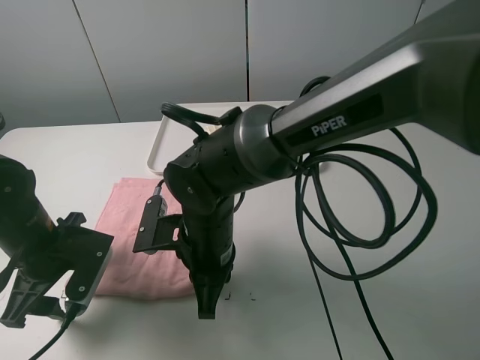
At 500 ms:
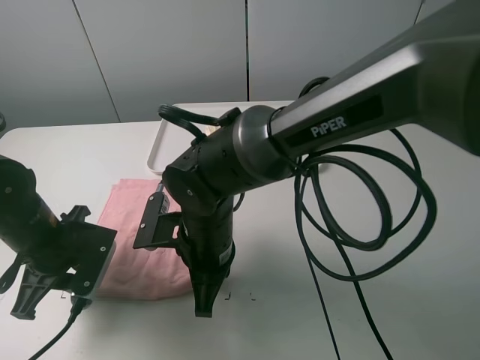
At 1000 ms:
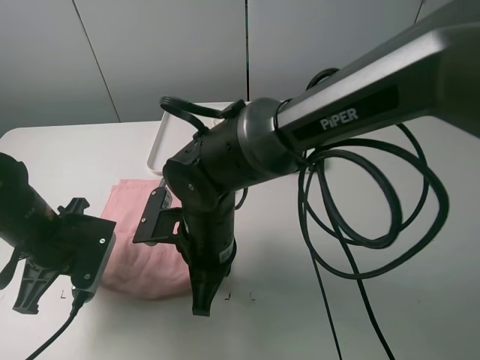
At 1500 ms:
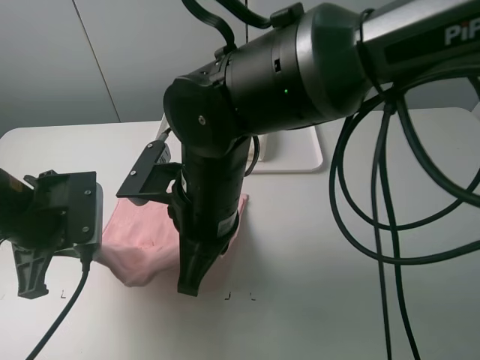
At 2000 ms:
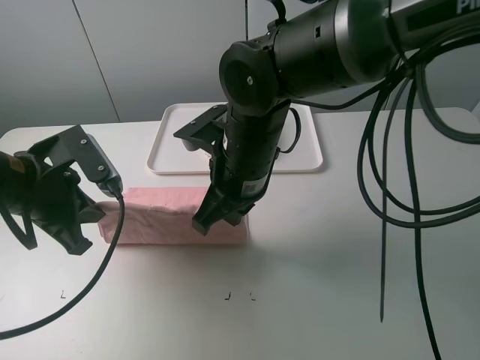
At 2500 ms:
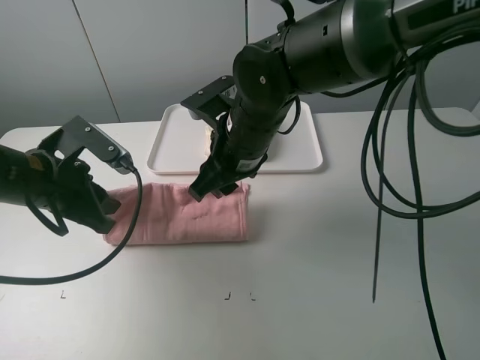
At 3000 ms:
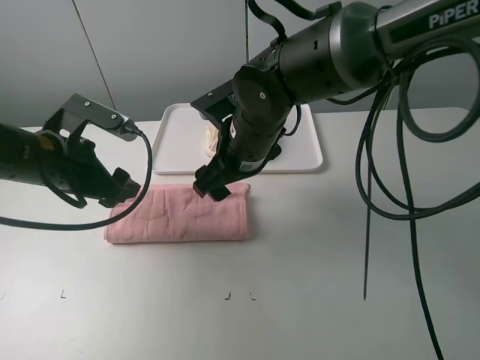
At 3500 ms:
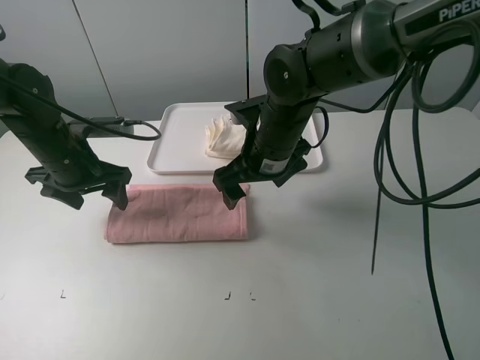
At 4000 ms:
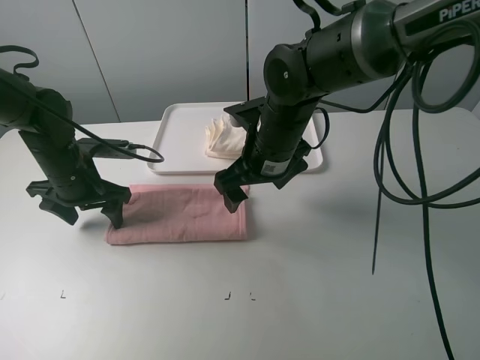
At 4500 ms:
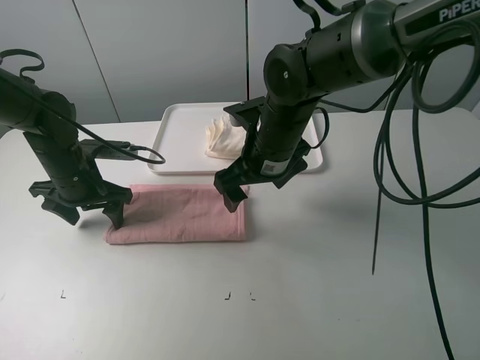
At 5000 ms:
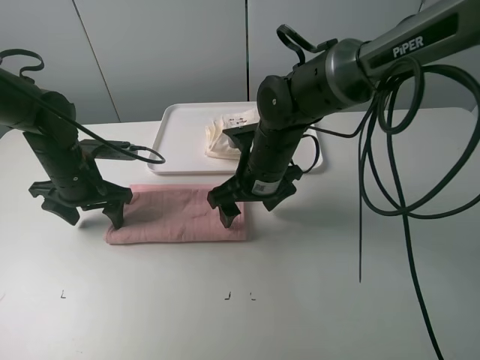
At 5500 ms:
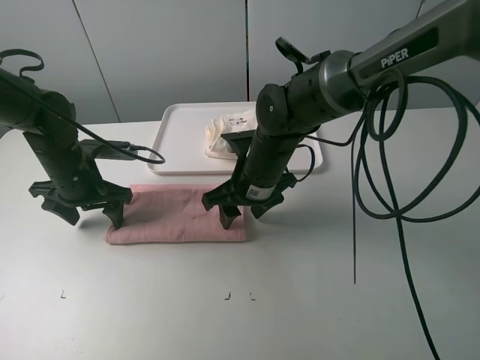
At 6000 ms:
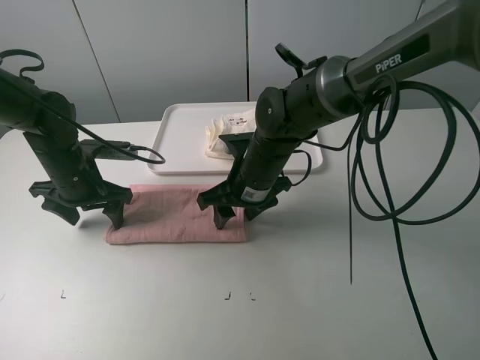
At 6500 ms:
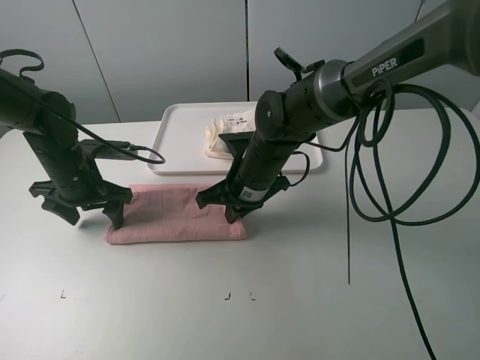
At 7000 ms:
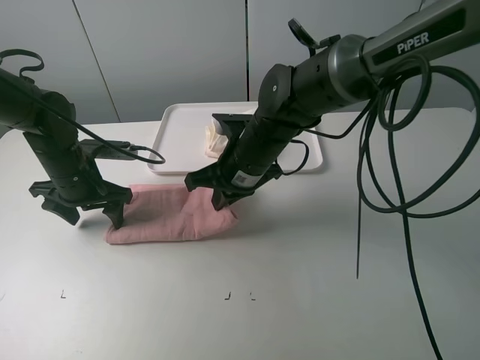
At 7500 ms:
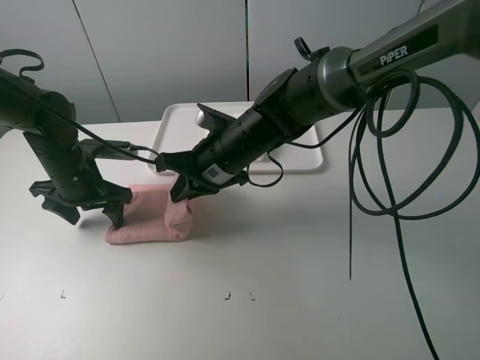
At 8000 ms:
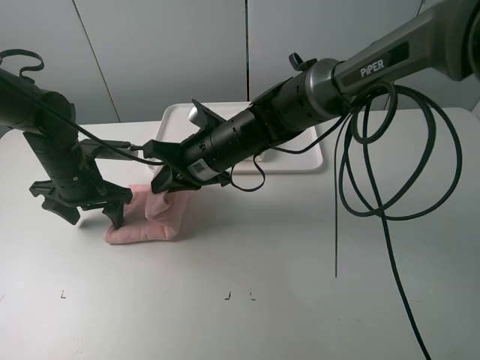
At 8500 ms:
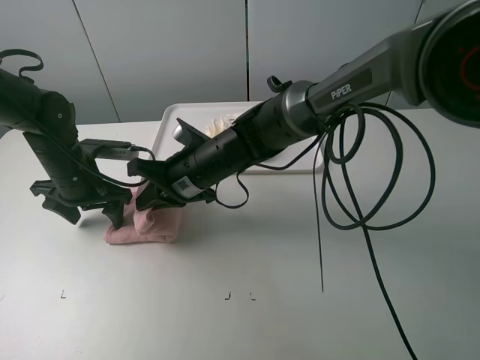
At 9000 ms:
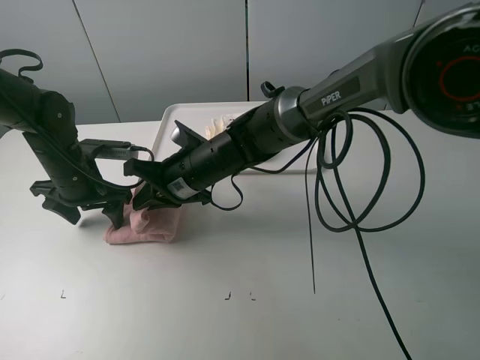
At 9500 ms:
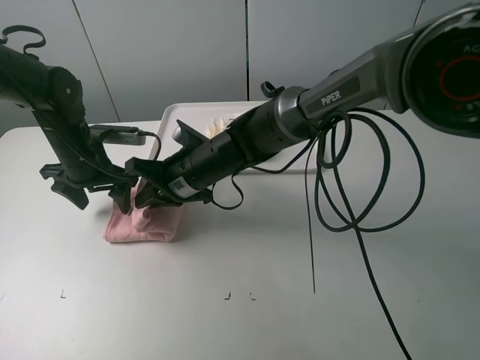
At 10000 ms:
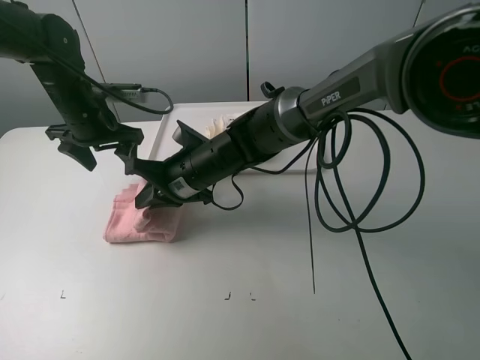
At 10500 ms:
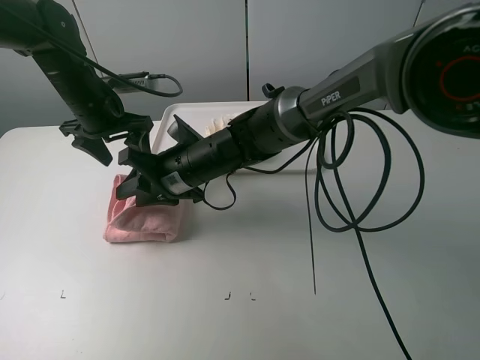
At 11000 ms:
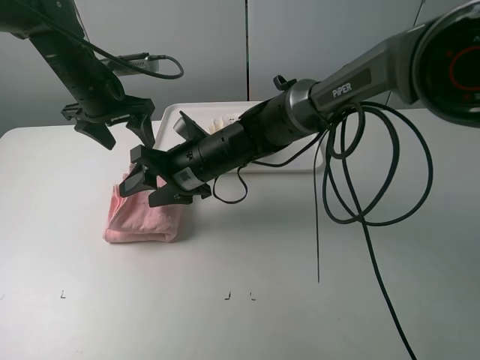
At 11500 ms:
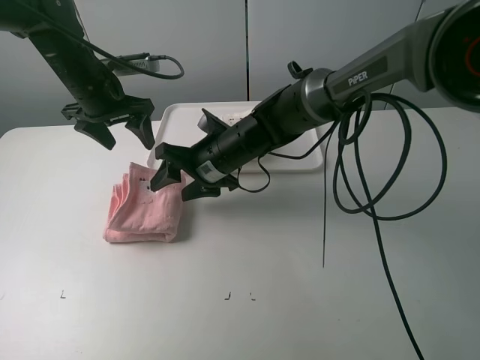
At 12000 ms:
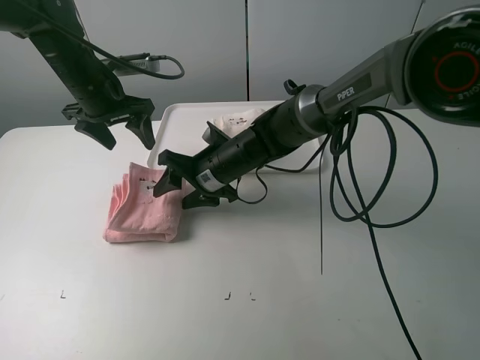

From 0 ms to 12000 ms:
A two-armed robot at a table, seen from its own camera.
Task of the whole recording: fold one of the towels by two grippers and place it on the tray,then fold another towel by two grippers and place it on the folded towel.
Step, from 1500 ms to 2500 ms: Fold the pink towel upwards with the left gripper.
Step, from 3000 ms to 4000 ms: Press the pink towel with the left gripper.
Step, from 4500 ms to 6500 ms: Grasp the pink towel with the right gripper.
Step, from 7000 ms to 10500 ms: Fold the pink towel from right to left with right gripper.
From 0 ms to 2000 ms: The right gripper is displaced upward and forward by some 10 cm. The left gripper shifts roughly 10 cm upward, and closes up.
From 2000 ms to 4000 ms: The left gripper moves forward and downward, approximately 15 cm, and opens up; the right gripper moves forward, about 5 cm, and opens.
From 4000 ms to 6000 ms: The right gripper heads downward, covering approximately 5 cm, and closes.
From 6000 ms to 8000 ms: The right gripper shifts some 5 cm to the left, and closes up.
From 8000 ms to 10000 ms: The left gripper heads upward and forward, covering approximately 10 cm.
From 10000 ms to 12000 ms: The right gripper opens.

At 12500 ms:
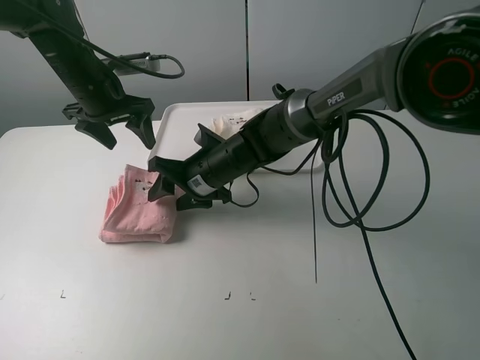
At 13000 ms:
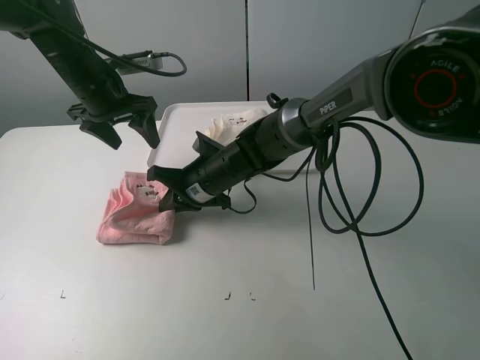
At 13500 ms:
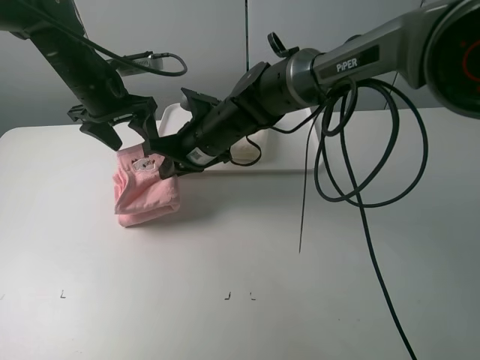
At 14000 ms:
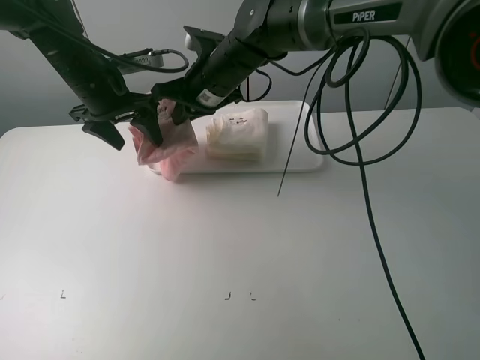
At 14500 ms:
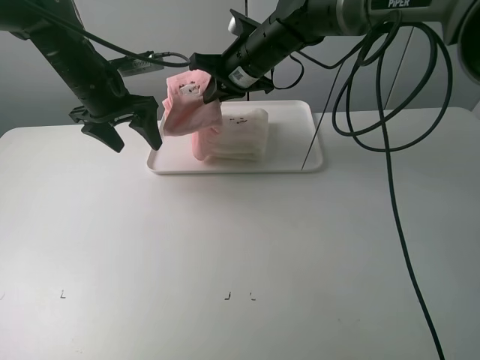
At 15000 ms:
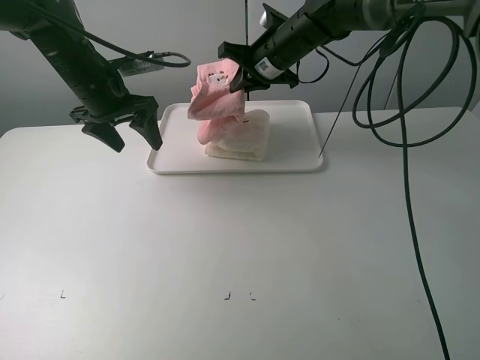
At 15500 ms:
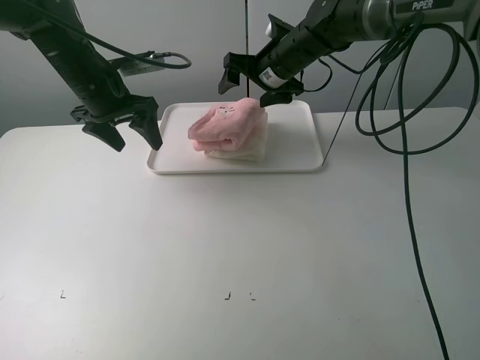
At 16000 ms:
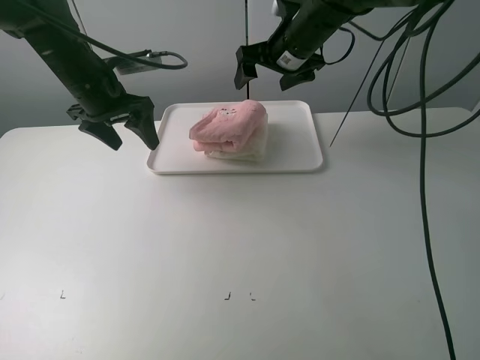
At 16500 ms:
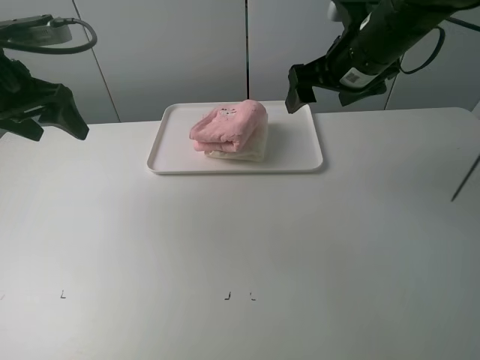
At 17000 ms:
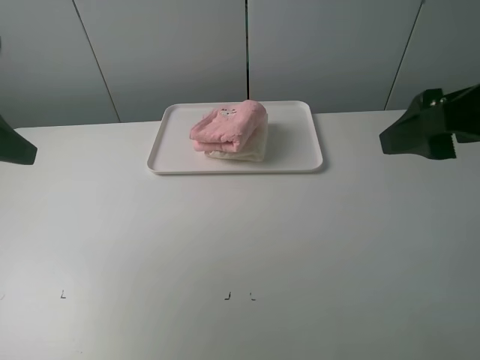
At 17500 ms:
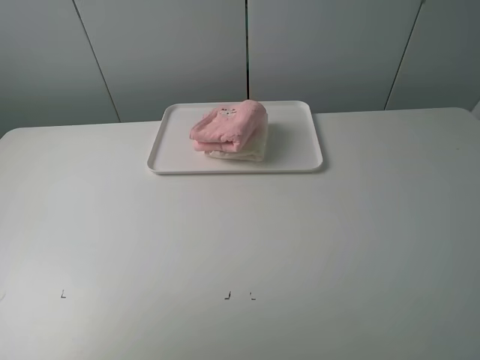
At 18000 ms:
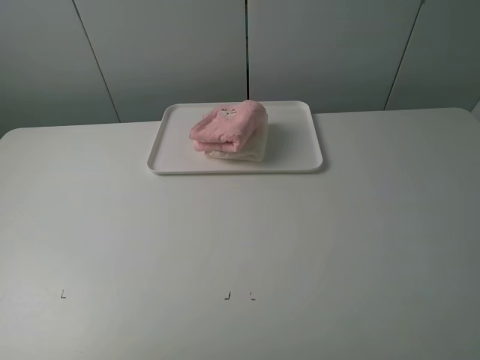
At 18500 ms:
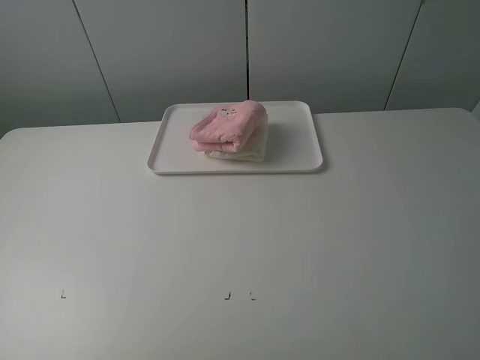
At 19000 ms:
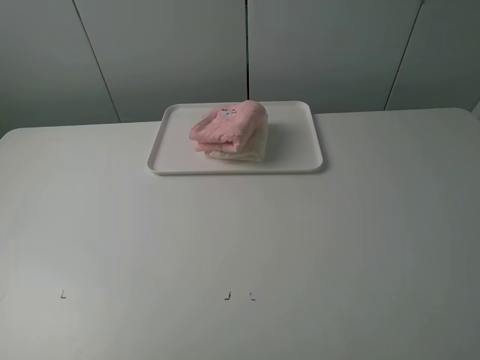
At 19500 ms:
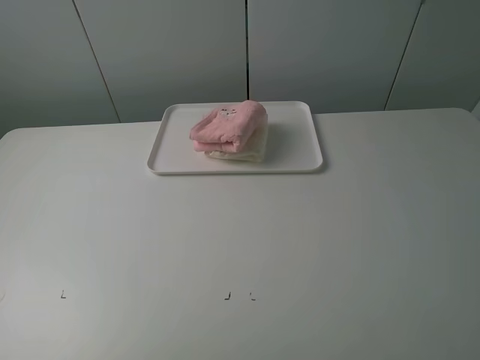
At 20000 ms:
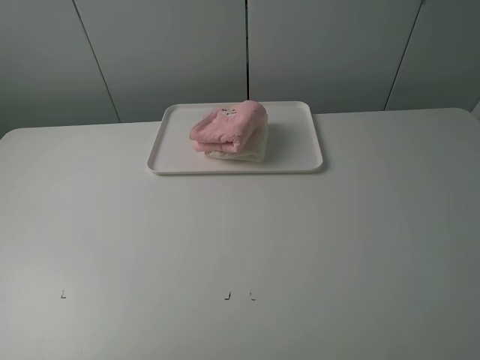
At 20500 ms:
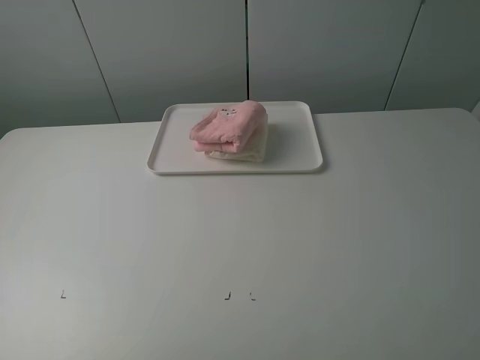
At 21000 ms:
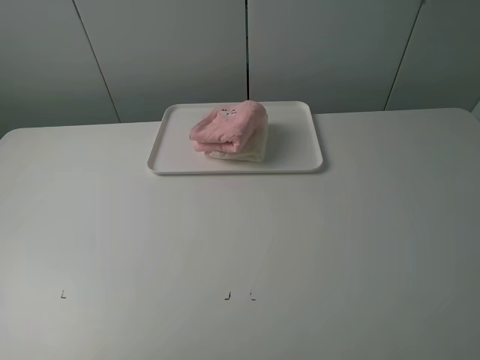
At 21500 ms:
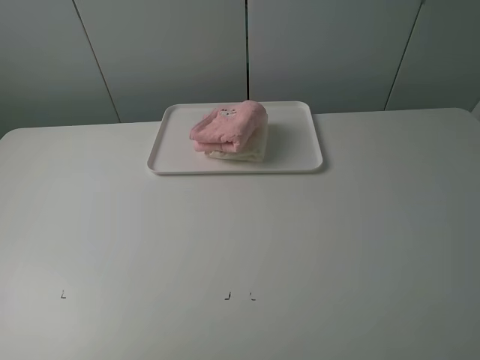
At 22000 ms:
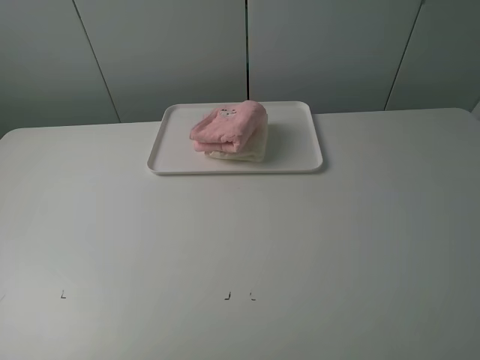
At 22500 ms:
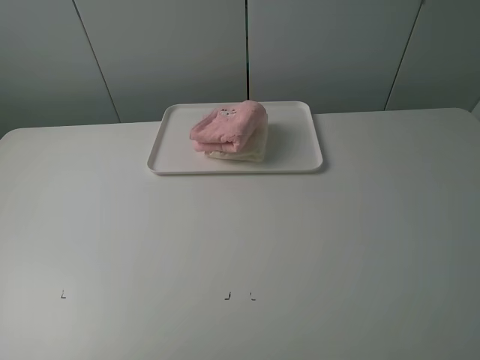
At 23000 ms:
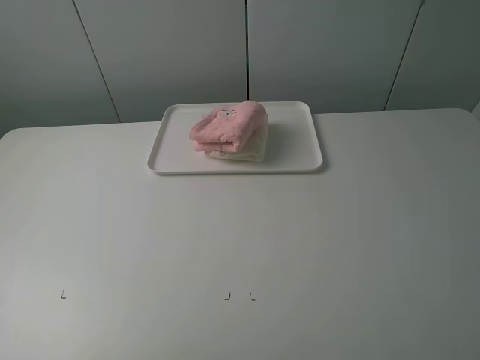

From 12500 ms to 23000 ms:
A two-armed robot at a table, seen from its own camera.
Task of the whole recording: fold one of the towels by two grippers and place it on the tray,then fold another towel by two grippers and place it on the folded towel.
Step, from 13000 ms to 15500 ms: Place the pink towel on the white towel with the right gripper.
From 12500 ms to 14500 ms: The right gripper heads upward, forward and to the right, covering approximately 20 cm, and closes up.
From 14500 ms to 16500 ms: The left gripper travels backward, to the left and upward by approximately 15 cm. The right gripper travels to the right, backward and upward by about 20 cm, and opens its fingers.
From 16500 ms to 19000 ms: Both grippers travel together backward, approximately 30 cm.
From 21000 ms to 23000 ms: The two grippers keep their place.
